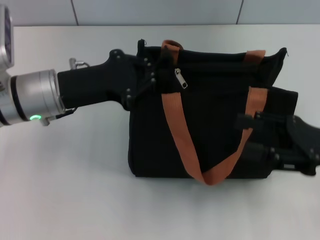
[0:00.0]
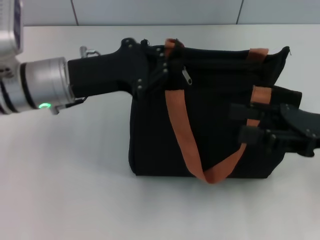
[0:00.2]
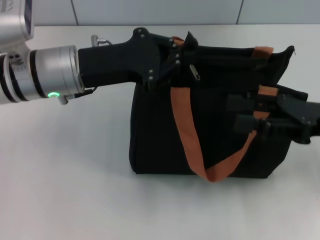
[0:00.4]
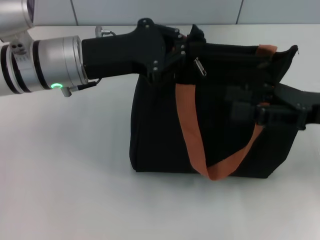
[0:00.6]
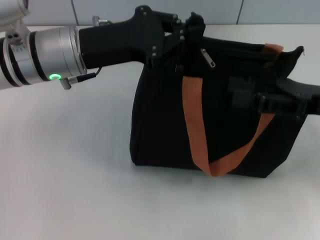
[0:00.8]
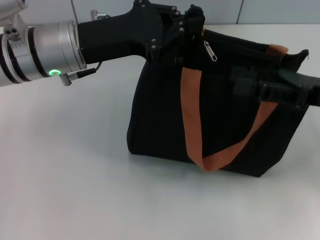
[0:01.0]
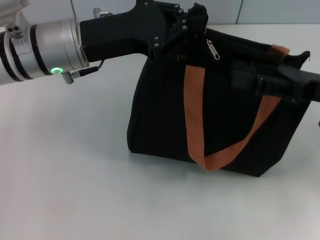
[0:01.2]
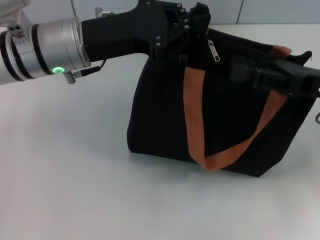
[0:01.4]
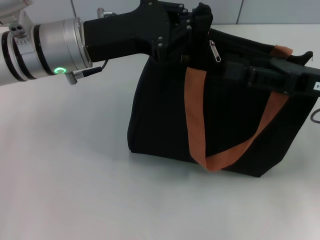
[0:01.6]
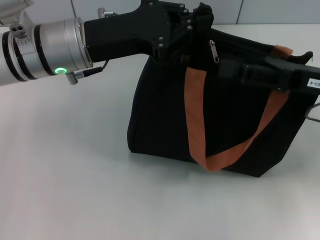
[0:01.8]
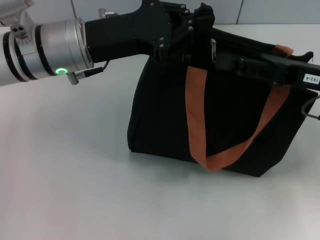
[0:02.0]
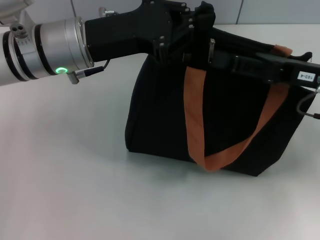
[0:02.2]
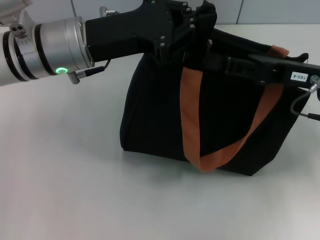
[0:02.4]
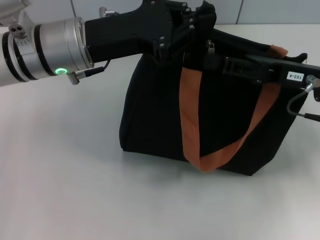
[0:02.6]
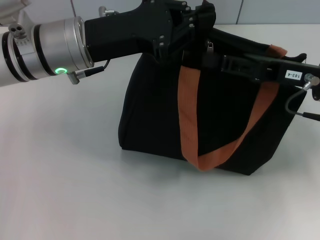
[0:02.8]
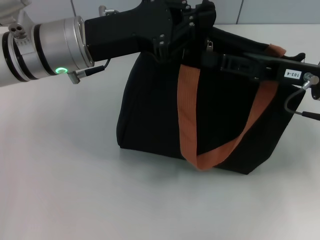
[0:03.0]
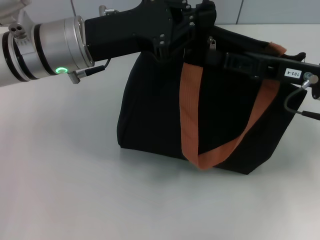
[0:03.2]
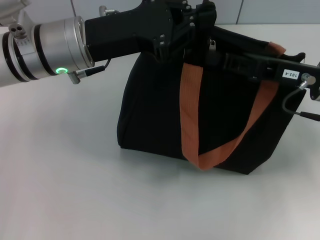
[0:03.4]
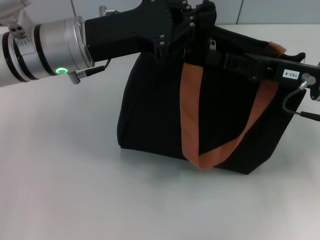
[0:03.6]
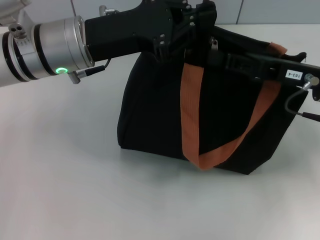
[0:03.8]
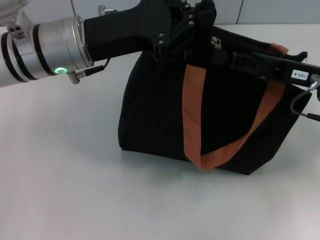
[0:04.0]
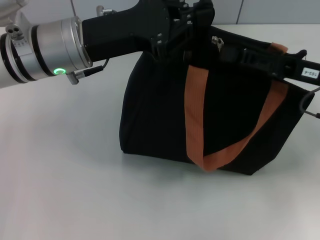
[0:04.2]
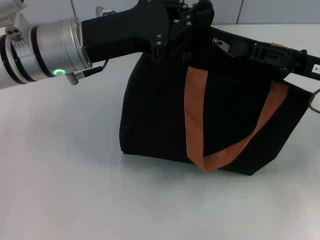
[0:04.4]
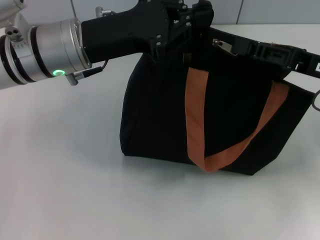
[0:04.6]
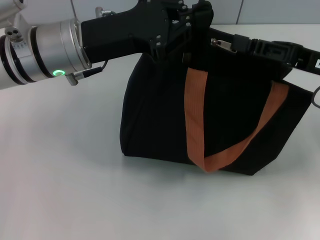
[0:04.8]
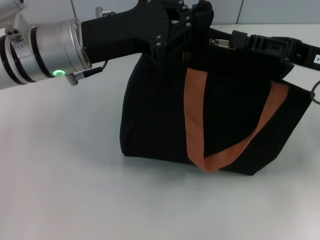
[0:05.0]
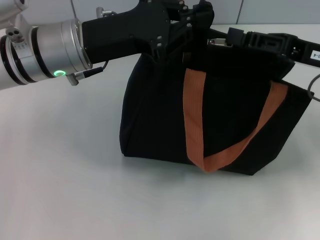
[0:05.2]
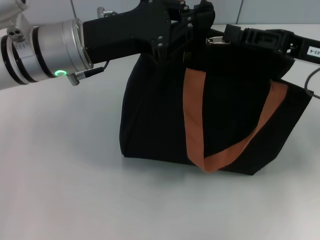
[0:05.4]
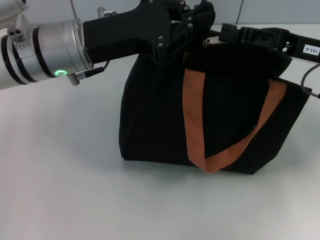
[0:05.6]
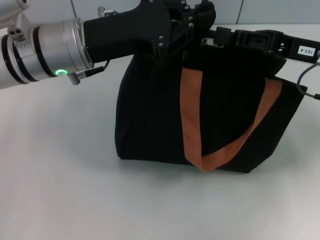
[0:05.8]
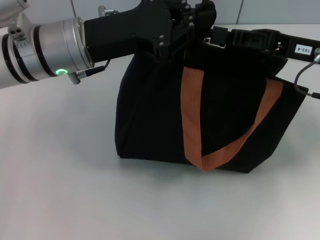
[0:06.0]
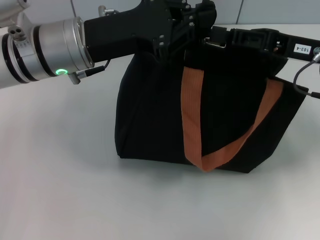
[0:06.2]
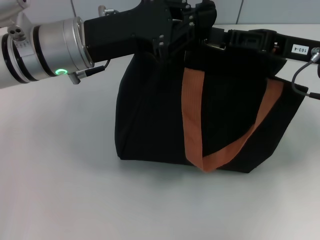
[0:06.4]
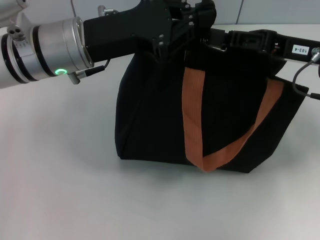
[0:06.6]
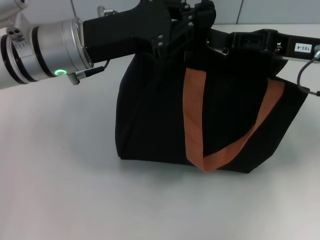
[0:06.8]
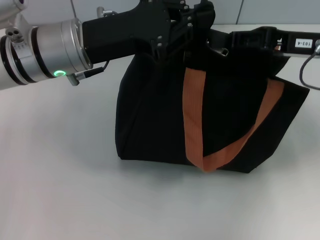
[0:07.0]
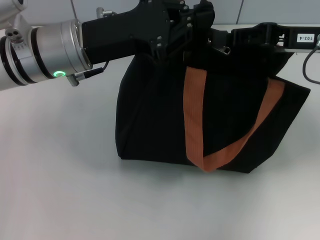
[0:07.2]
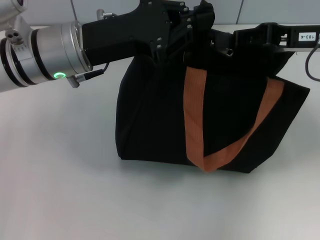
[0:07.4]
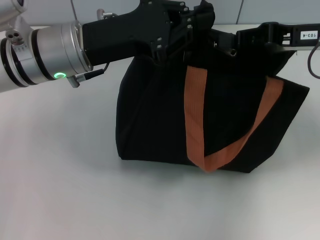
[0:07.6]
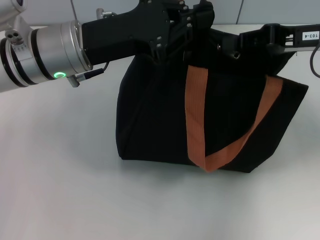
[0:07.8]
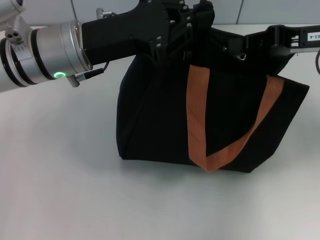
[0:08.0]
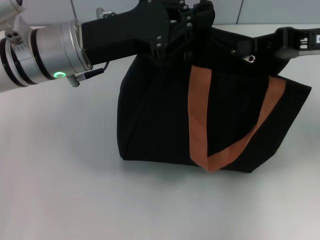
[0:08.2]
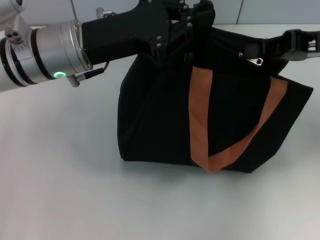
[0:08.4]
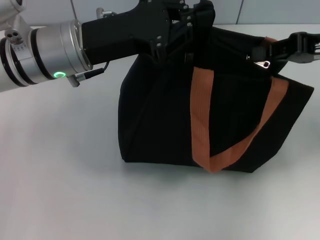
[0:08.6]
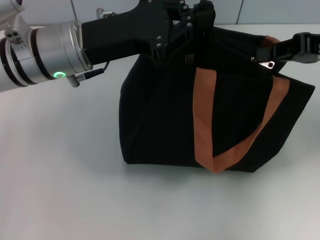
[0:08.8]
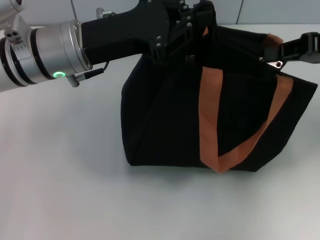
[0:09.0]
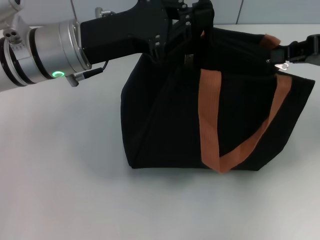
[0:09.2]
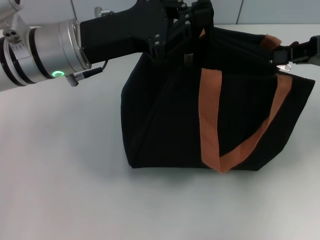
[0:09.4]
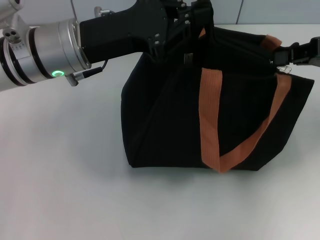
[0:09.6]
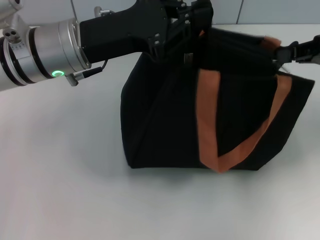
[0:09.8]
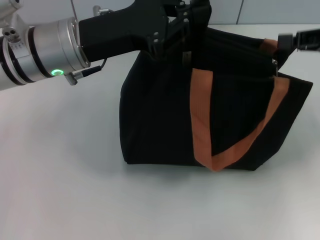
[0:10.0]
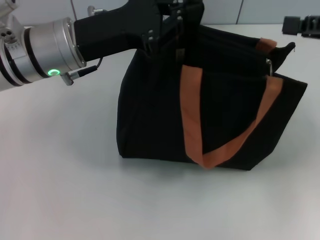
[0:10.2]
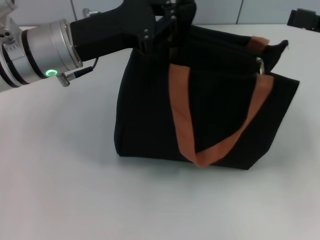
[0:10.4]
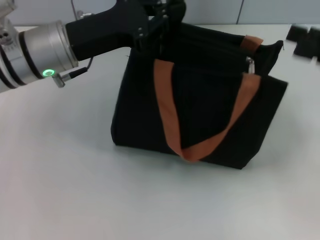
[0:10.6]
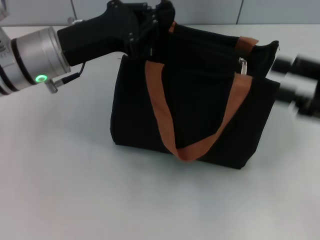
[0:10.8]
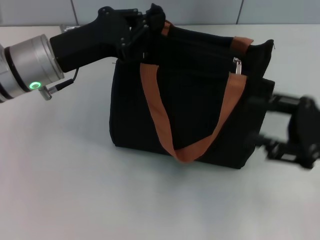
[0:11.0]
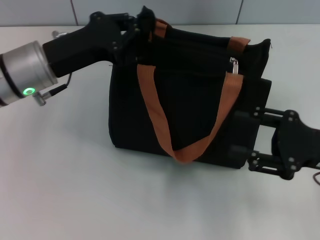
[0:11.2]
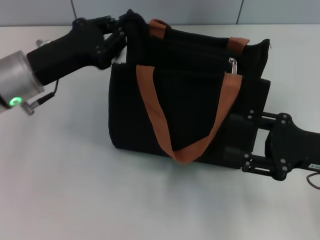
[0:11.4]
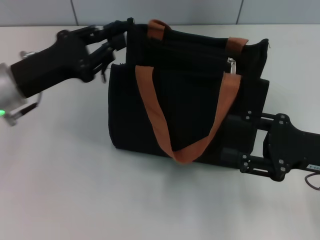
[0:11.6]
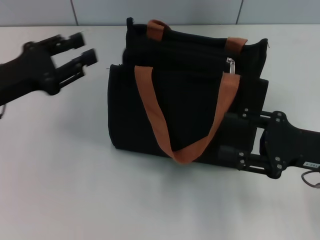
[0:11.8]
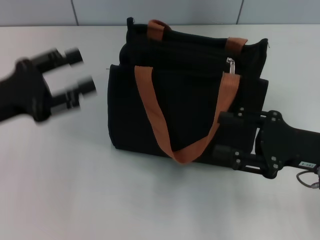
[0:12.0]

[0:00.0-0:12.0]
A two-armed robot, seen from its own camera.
Step, 0.0 to 9.8 s: Pull up the zipper with your right hand.
Step, 10.2 to 11.6 s: Grab the zipper with your left hand.
0.0 to 1.6 s: The left gripper changes place by roughly 5 cm, while the right gripper is displaced forward by roughly 5 cm.
1.6 to 3.0 s: The right gripper closes up.
3.0 to 6.0 s: The grippers move only a little.
6.0 to 7.6 s: The grippers make only small movements.
7.6 to 9.0 s: The right gripper shifts by some 5 cm.
9.0 to 10.4 s: The right gripper shifts by roughly 5 cm.
10.4 to 12.0 s: The left gripper goes some 15 cm to the left and backward, and opens its fingers. Meanwhile the right gripper travels downward, to the left and backward by some 15 cm, and opens its fingers.

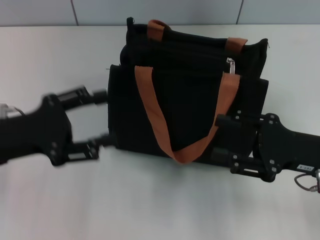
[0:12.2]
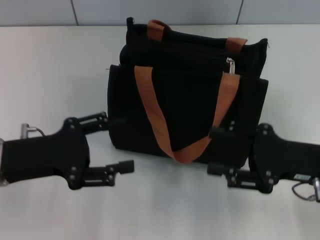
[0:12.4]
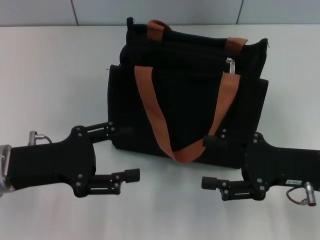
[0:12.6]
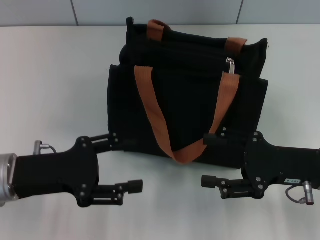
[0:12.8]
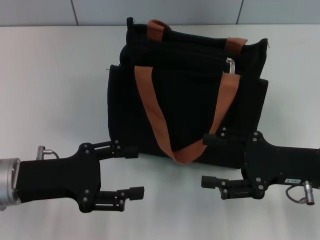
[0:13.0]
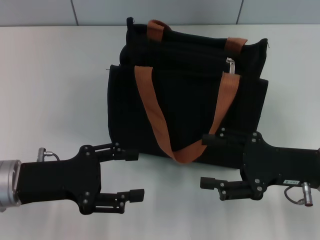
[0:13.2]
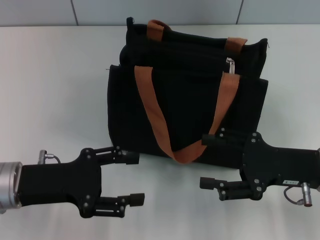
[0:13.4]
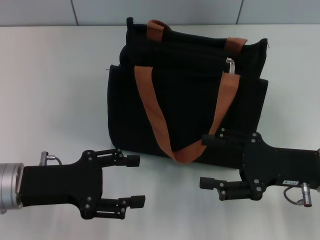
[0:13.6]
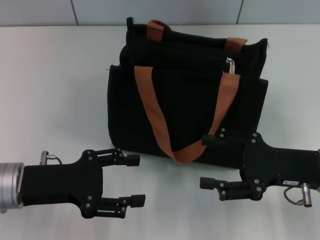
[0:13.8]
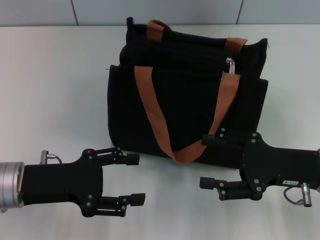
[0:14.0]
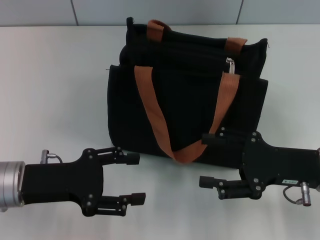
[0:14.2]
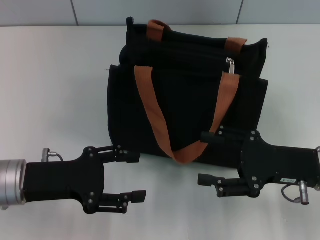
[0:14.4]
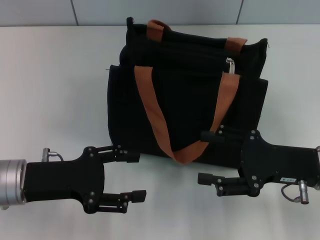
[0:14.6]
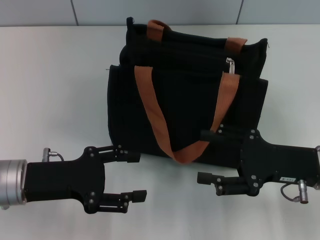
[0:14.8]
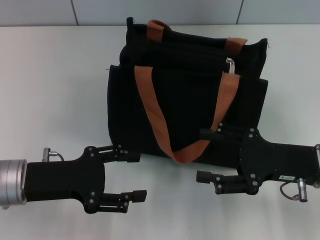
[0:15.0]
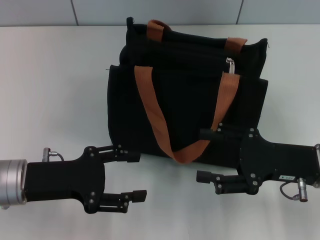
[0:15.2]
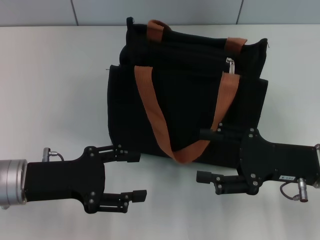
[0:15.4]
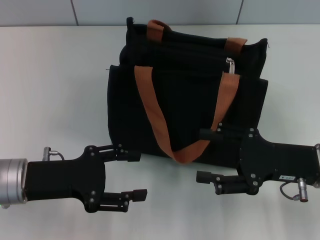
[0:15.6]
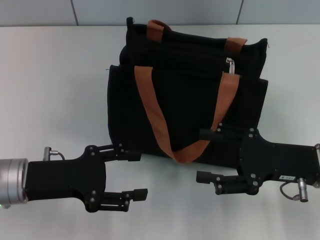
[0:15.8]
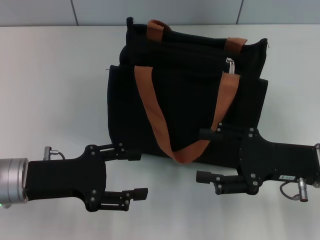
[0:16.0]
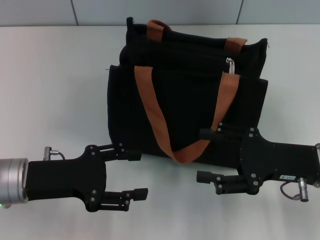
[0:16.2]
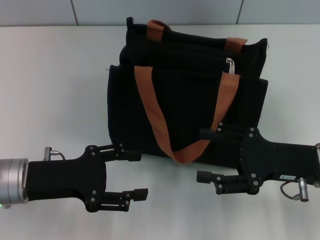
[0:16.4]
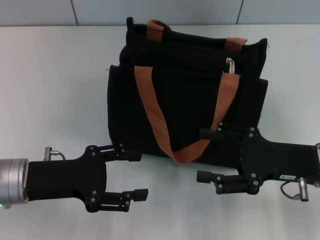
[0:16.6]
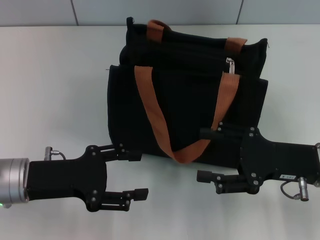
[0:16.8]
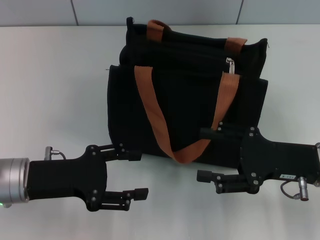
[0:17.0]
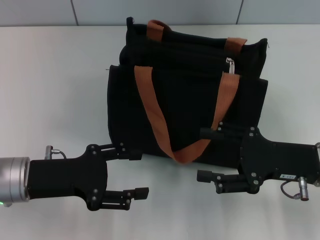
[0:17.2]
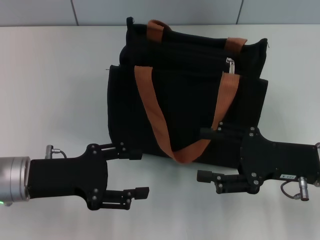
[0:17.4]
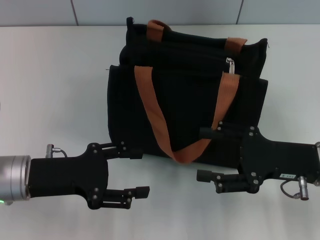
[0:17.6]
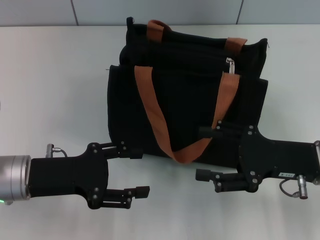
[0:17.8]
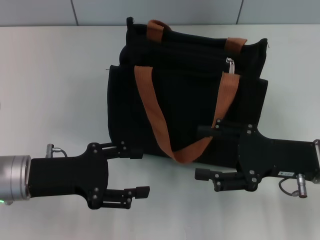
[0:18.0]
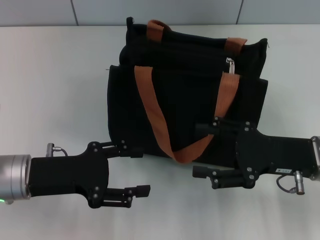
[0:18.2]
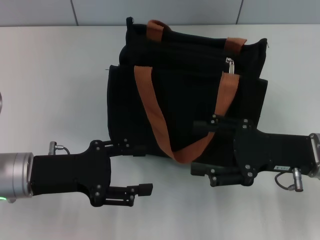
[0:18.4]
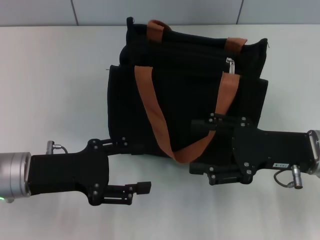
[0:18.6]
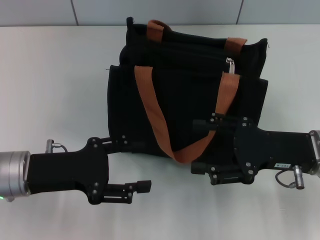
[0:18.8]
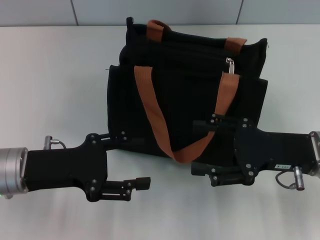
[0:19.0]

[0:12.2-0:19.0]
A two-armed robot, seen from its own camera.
12.2 to 13.6 s: The left gripper changes place by roughly 5 cm.
13.6 to 17.6 s: Both grippers stay about where they are.
17.6 to 19.0 s: The grippers make only small movements.

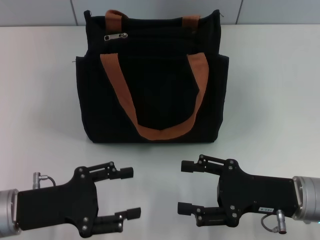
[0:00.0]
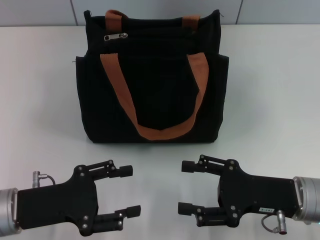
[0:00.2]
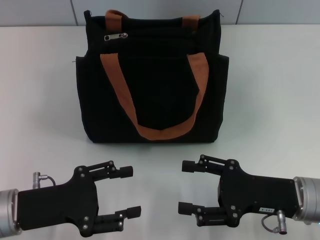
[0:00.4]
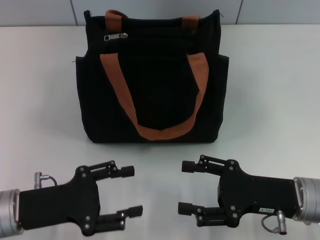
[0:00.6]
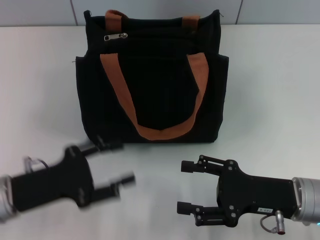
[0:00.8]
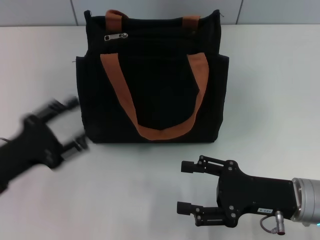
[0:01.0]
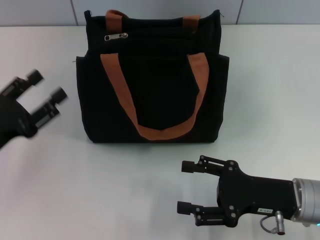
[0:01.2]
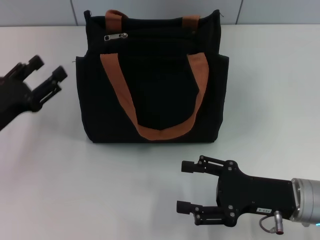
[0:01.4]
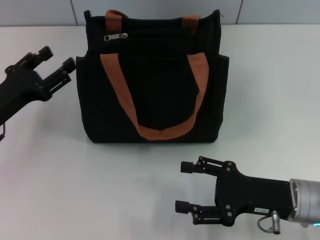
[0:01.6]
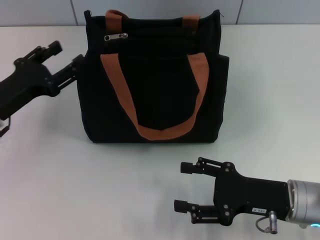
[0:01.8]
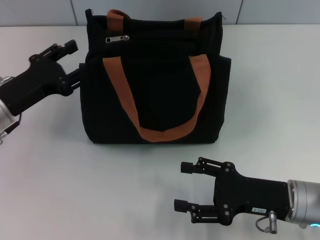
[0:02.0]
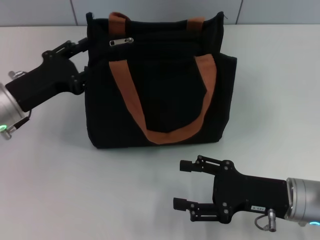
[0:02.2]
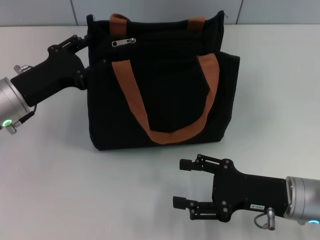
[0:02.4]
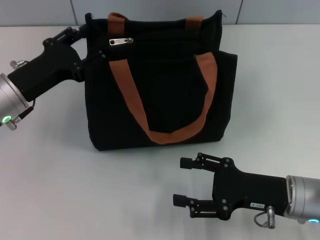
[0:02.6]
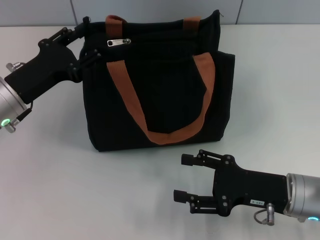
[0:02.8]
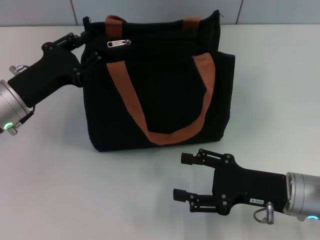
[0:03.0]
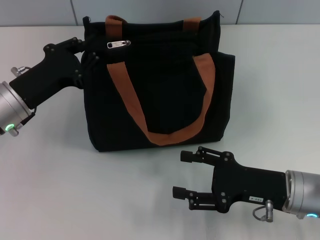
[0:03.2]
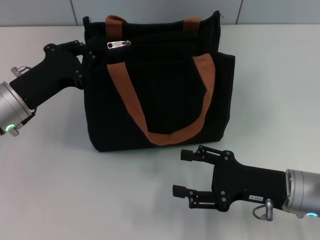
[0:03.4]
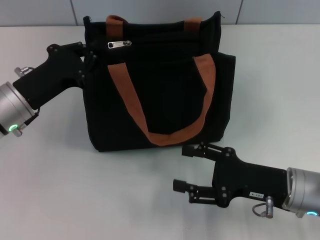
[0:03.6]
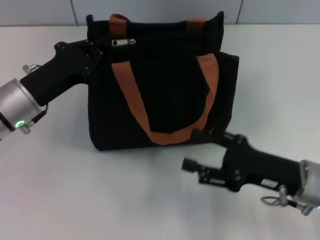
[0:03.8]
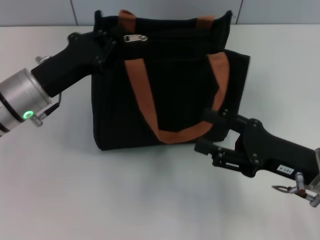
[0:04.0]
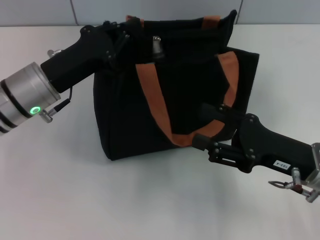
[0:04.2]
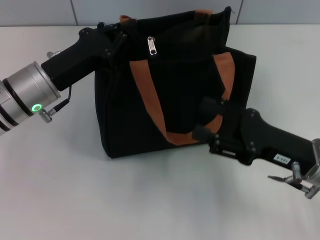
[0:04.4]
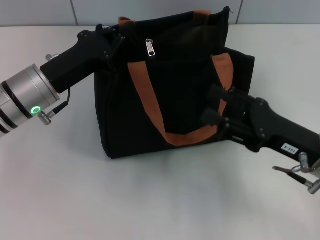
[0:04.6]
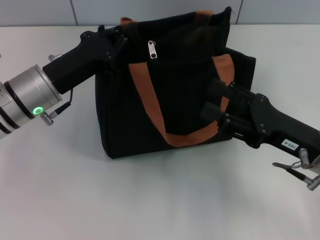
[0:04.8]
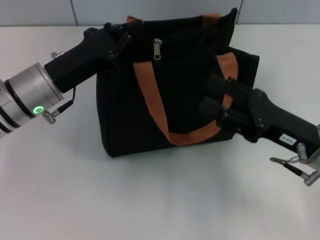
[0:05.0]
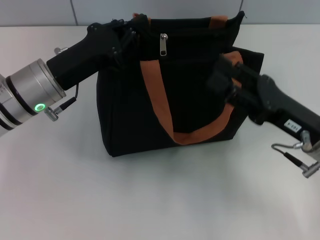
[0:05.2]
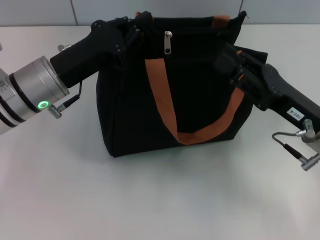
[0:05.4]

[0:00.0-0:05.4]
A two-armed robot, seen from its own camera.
0.0 to 1.4 s: The left gripper moves forward, roughly 5 cm.
1.4 to 2.8 s: The left gripper heads forward, covering roughly 5 cm.
2.8 to 4.0 s: The left gripper closes.
